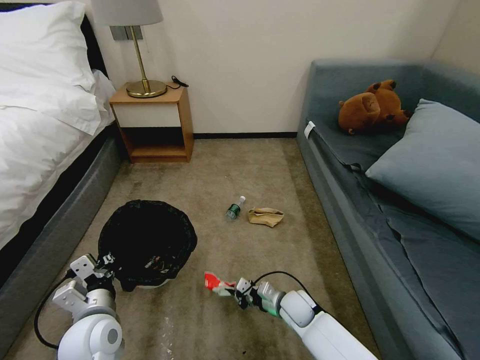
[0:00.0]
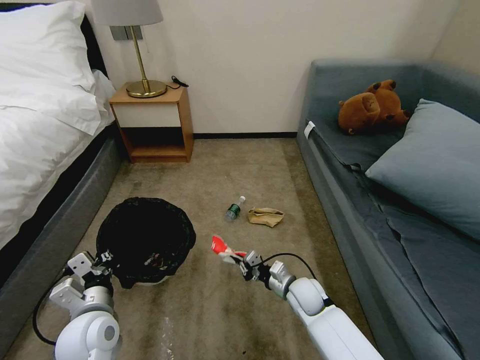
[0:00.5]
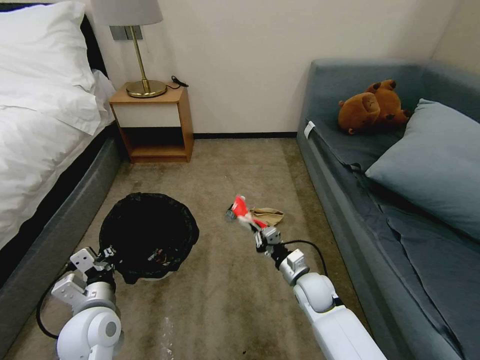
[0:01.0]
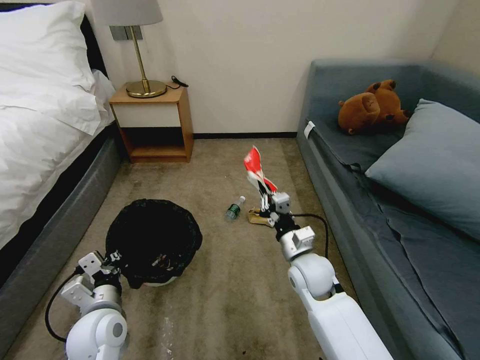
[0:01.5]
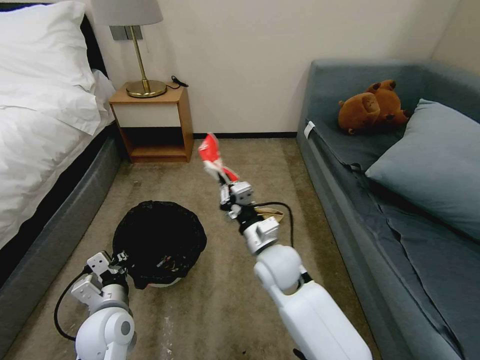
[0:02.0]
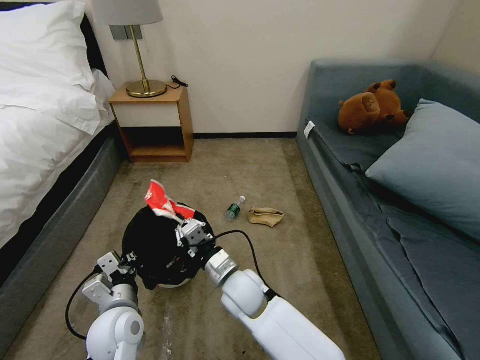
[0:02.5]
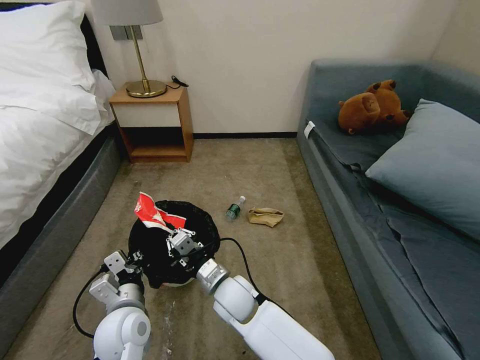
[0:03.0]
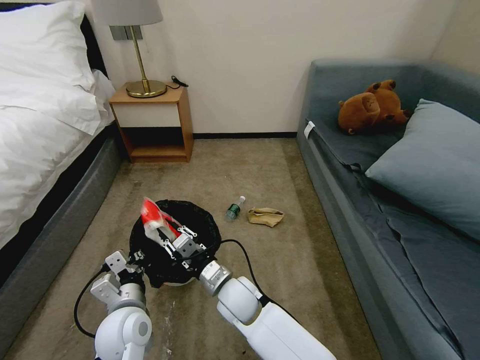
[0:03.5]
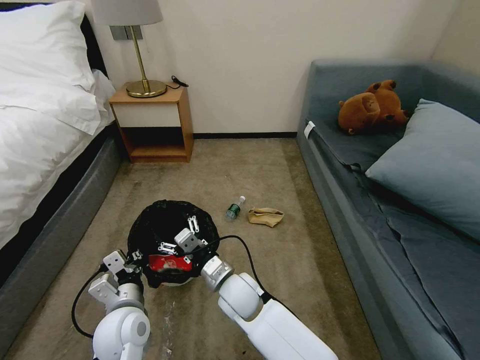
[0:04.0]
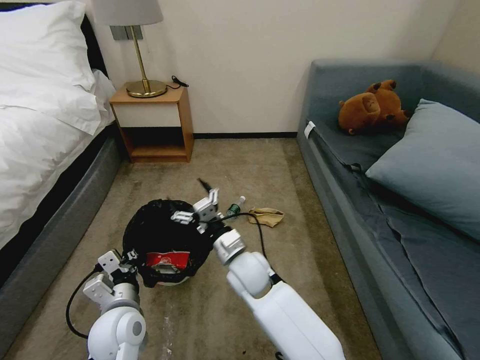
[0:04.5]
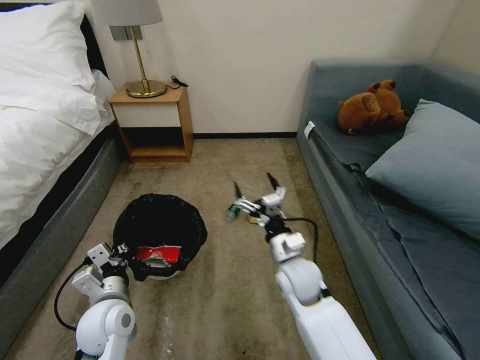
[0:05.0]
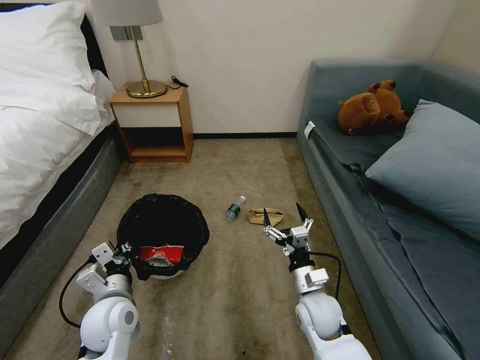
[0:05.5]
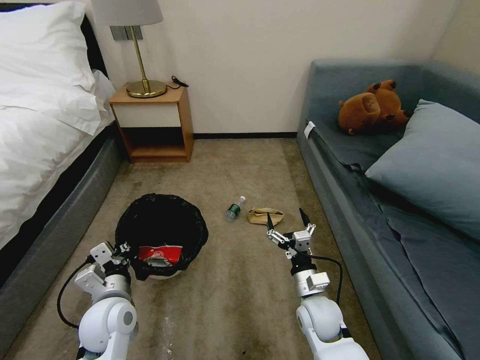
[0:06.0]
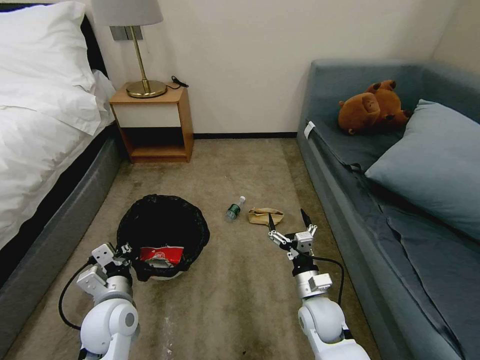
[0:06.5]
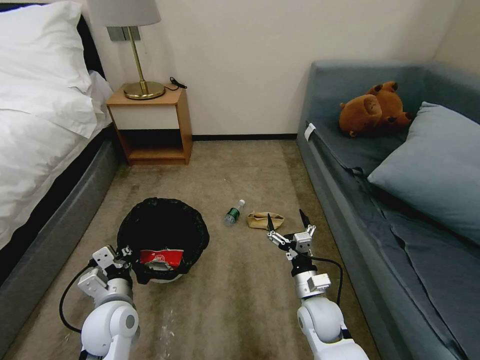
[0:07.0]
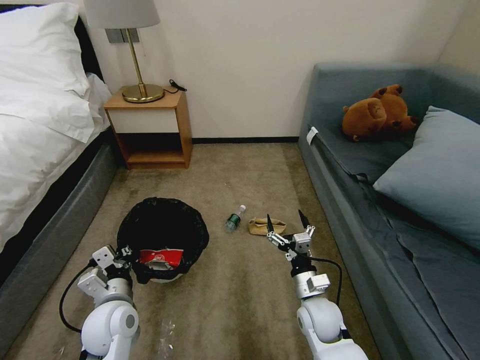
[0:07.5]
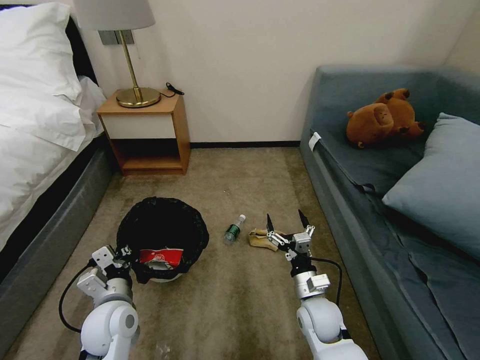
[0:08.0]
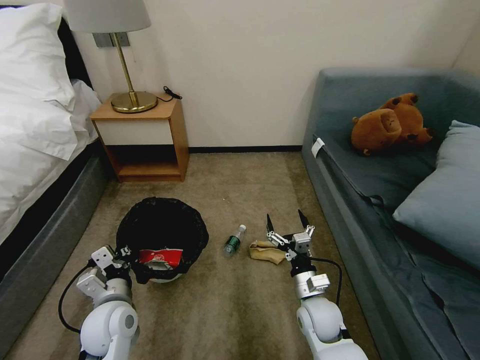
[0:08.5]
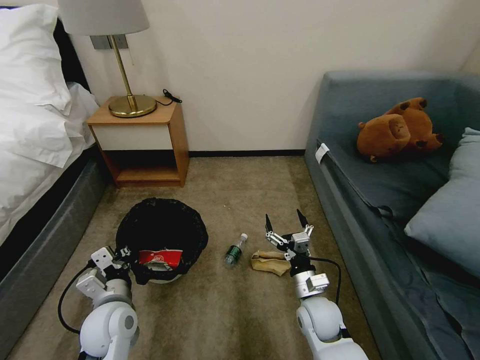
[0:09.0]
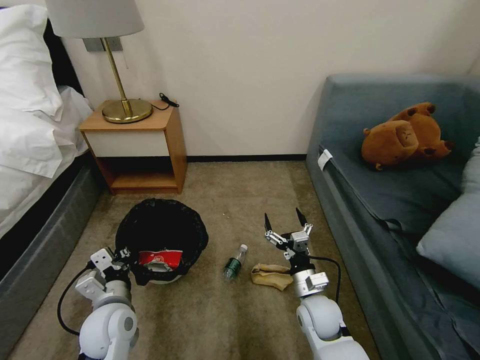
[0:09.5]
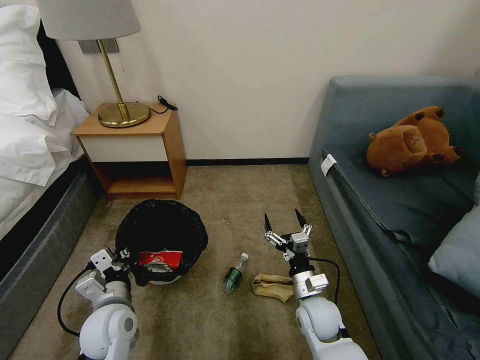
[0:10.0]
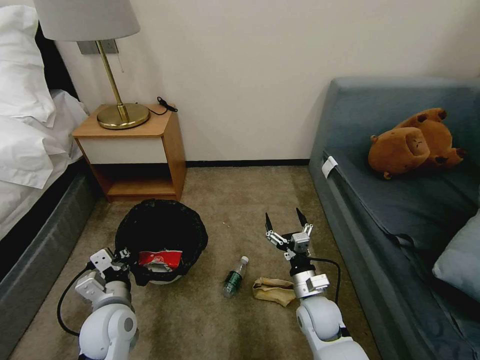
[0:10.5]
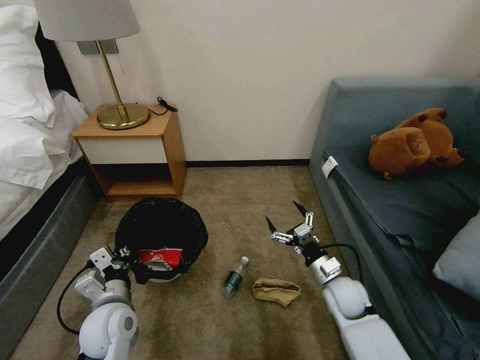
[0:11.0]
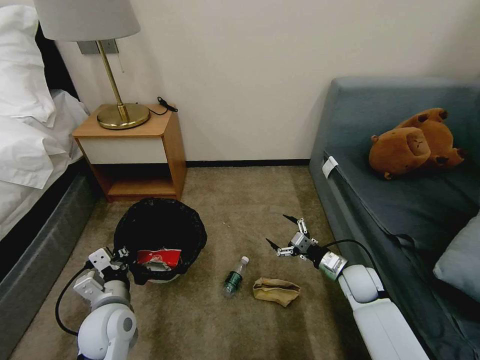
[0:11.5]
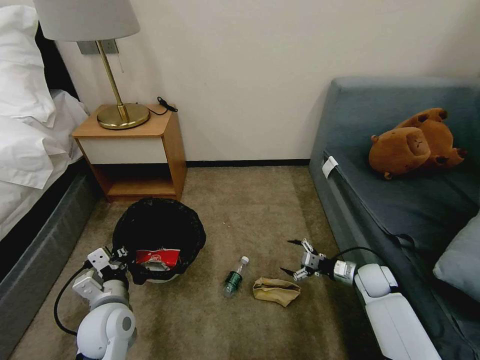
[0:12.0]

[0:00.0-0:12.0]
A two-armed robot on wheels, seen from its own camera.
Task of the whole recording: Pick up the trash bin, then pick up the garbage on the floor and place it into the trash bin.
0.0 to 2.0 s: The right gripper travels upward by approximately 20 cm.
2.0 to 4.0 s: The right gripper heads to the left and downward, covering about 15 cm, and opens its fingers.
4.0 to 6.0 s: The right gripper shifts some 20 cm to the right.
10.0 to 12.0 s: The right gripper goes about 25 cm to the right and forward.

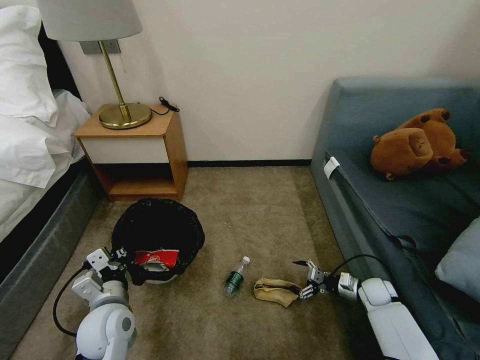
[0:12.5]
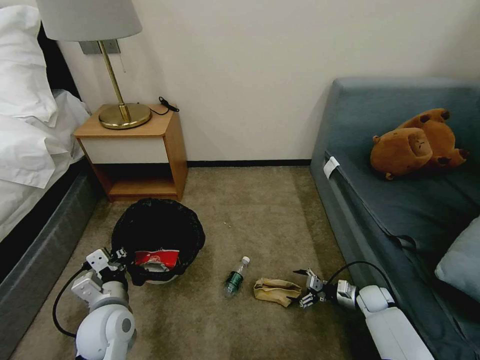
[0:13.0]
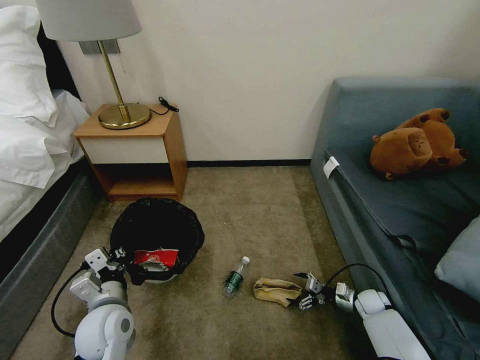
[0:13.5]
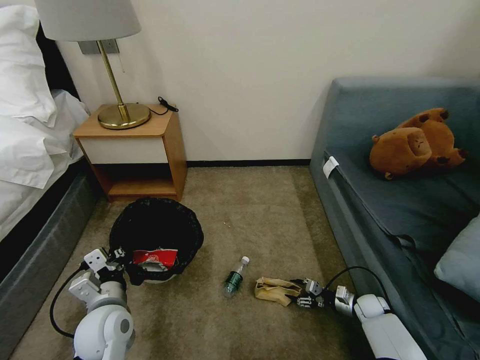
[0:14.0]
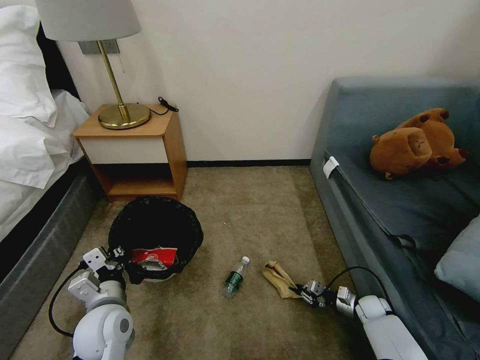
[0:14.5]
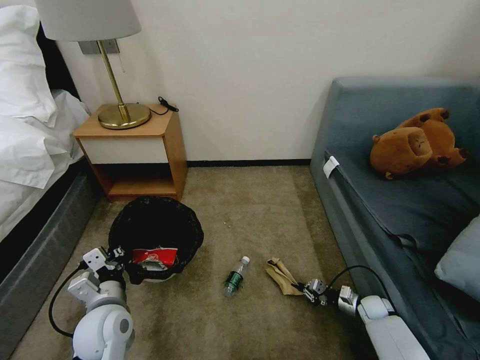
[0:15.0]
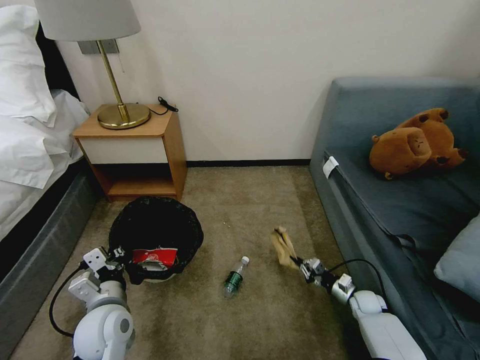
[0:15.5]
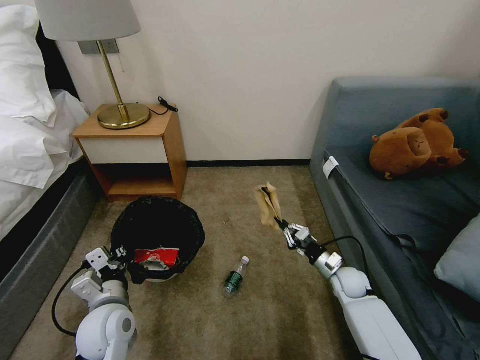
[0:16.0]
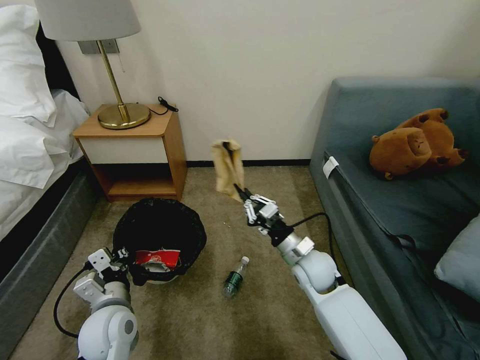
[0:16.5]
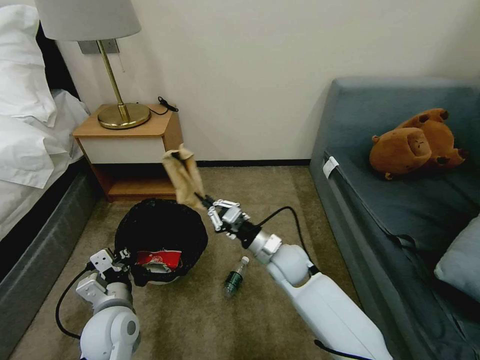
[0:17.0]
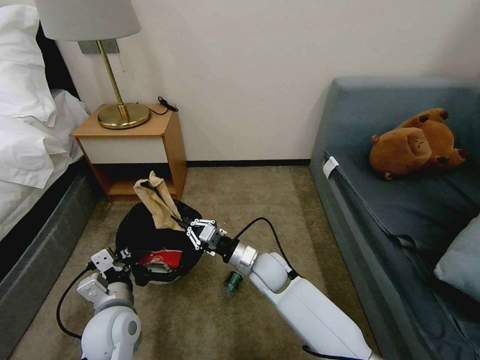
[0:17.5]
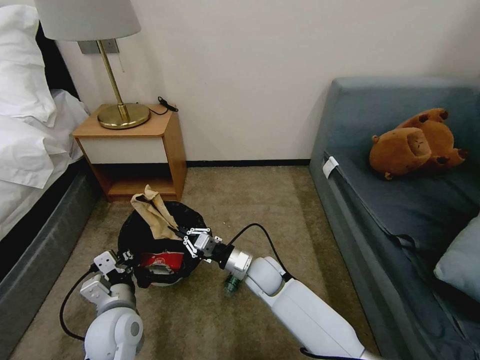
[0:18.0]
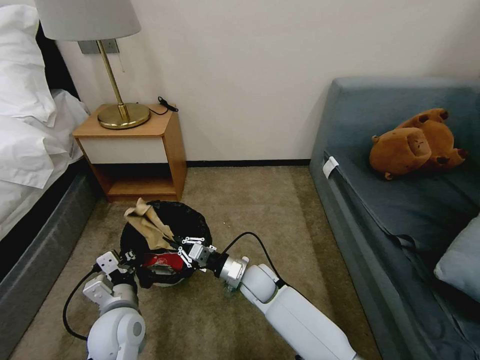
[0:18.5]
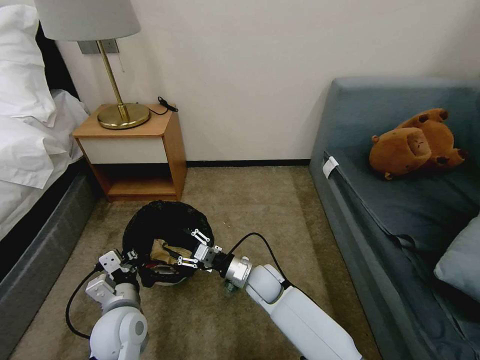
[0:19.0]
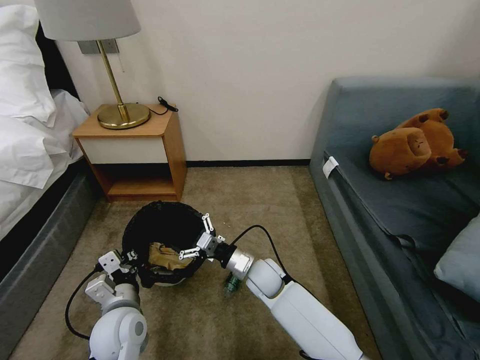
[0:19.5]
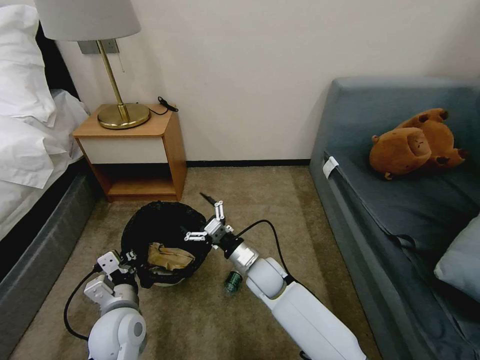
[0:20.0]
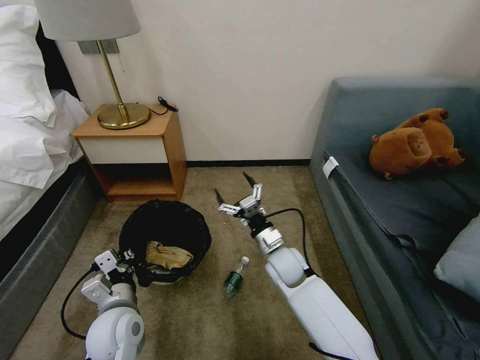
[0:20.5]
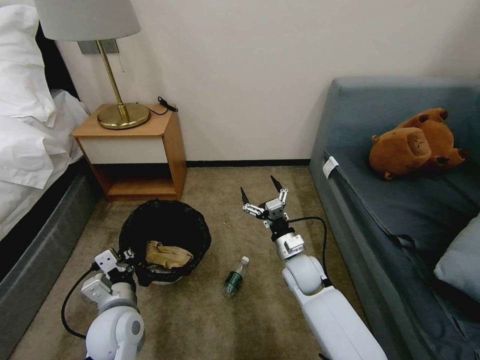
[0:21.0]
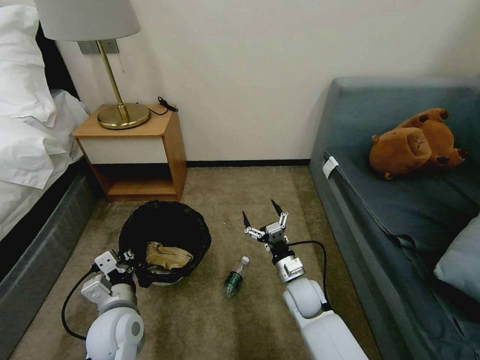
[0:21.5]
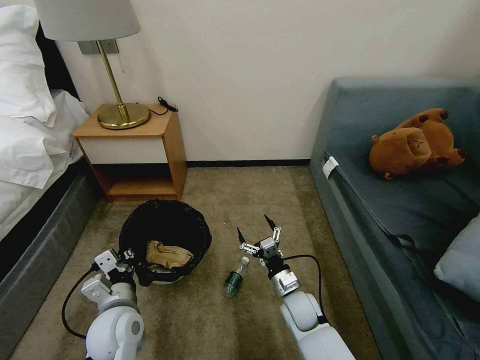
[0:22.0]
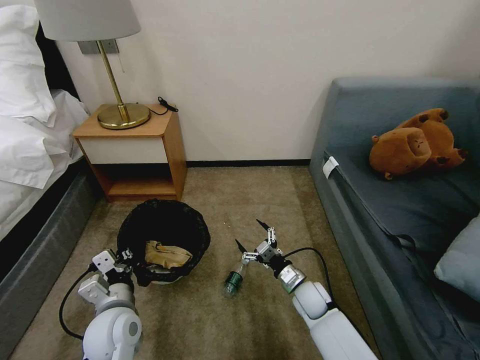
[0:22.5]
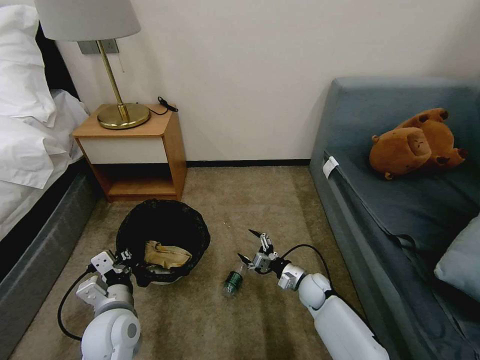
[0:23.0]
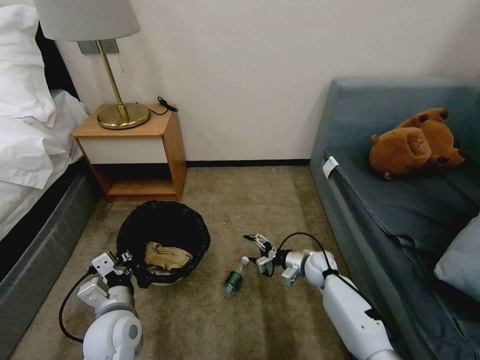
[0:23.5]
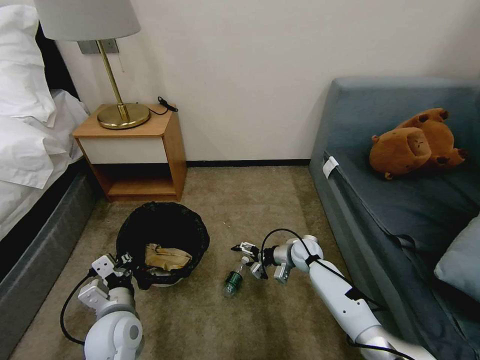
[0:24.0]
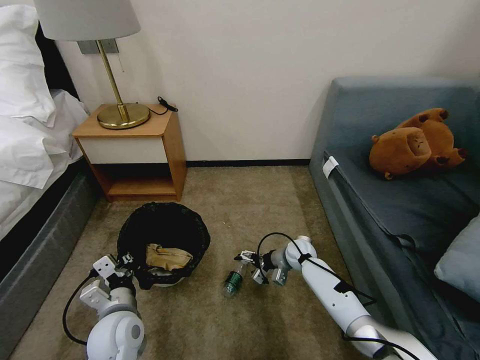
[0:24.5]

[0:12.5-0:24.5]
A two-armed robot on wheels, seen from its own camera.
Task of the whole recording: Pick up the trash bin, then pick up the garbage on the floor and place it into the trash bin.
12.5 to 14.5 s: The right gripper travels downward by some 5 cm, and closes.
14.5 to 16.5 s: The right gripper goes some 30 cm to the left and upward.
16.5 to 18.5 s: The right gripper is displaced to the left and downward by approximately 15 cm.
18.5 to 20.5 s: The right gripper moves to the right and upward, some 10 cm, and opens up.
20.5 to 22.5 s: The right gripper is displaced downward and to the right by some 15 cm.
22.5 to 24.5 s: The right gripper heads forward, covering about 15 cm.

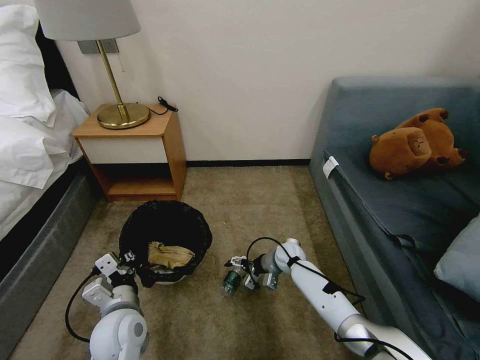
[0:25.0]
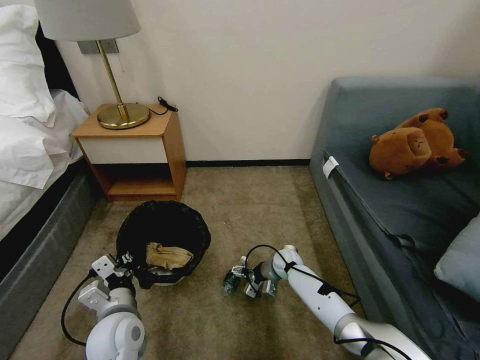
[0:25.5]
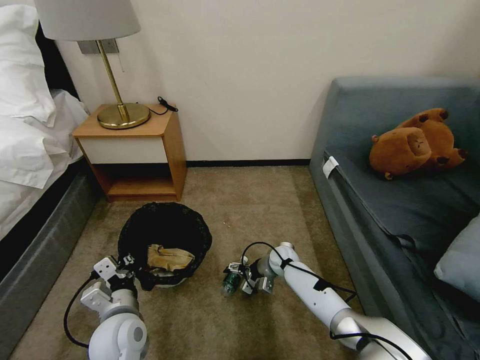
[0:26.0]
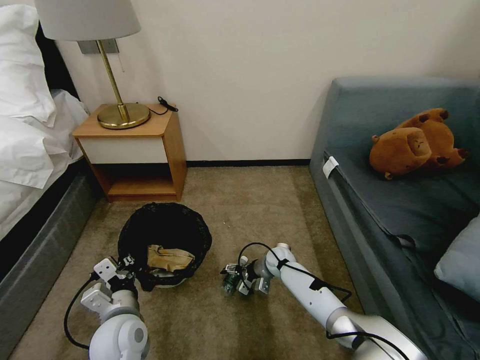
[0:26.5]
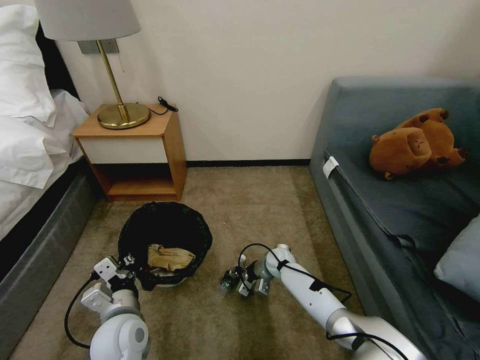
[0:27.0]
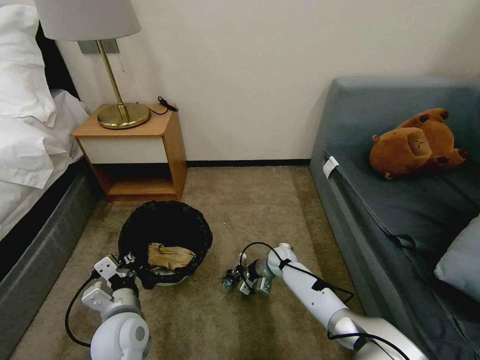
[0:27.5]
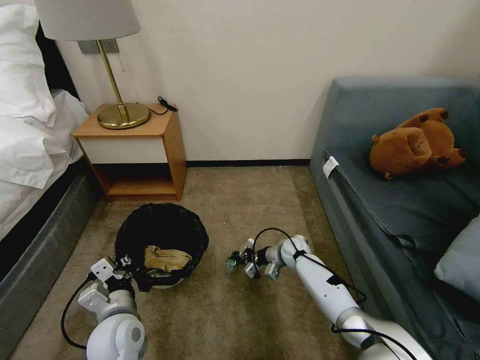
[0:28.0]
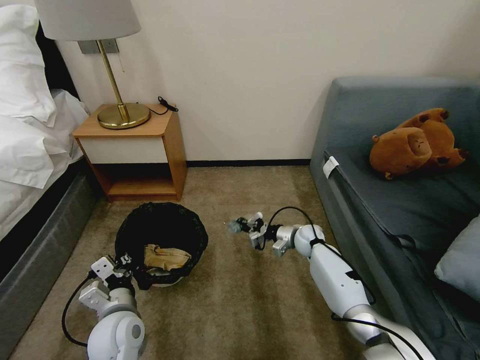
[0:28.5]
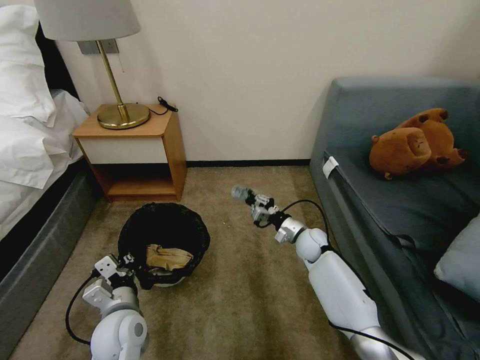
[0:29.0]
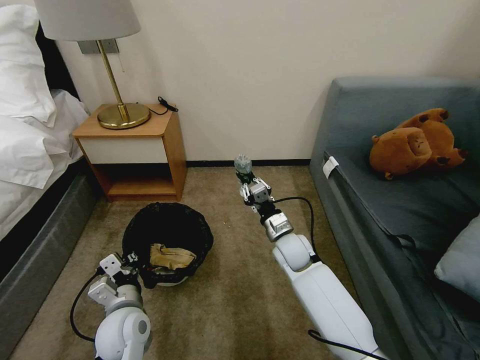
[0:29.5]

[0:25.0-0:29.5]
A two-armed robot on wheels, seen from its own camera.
Task of the whole recording: Pick up the trash bin, then pick up the garbage on the floor and place it into the trash bin.
25.0 to 27.0 s: The right gripper closes up.
27.0 to 29.5 s: The right gripper moves upward, roughly 15 cm.
